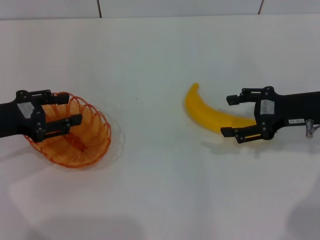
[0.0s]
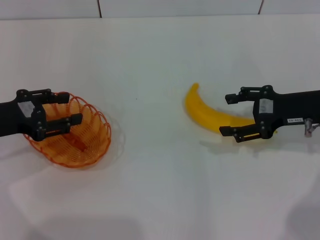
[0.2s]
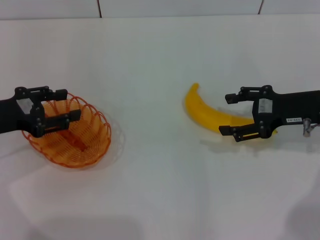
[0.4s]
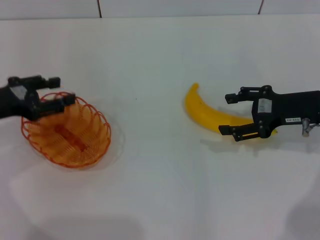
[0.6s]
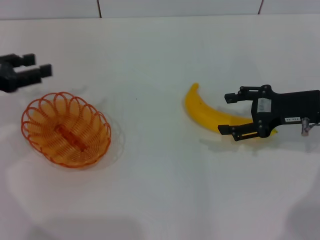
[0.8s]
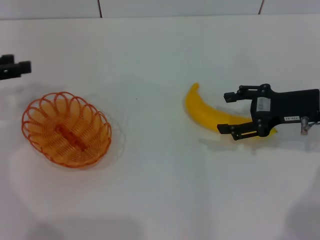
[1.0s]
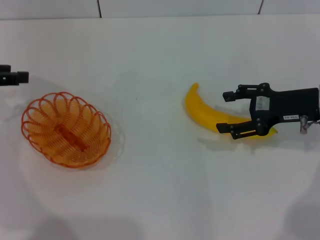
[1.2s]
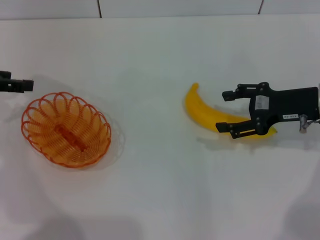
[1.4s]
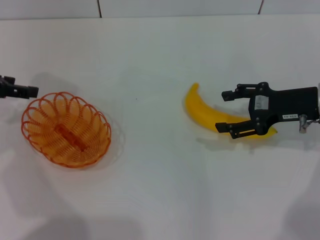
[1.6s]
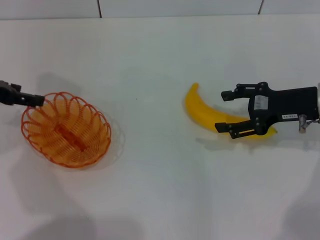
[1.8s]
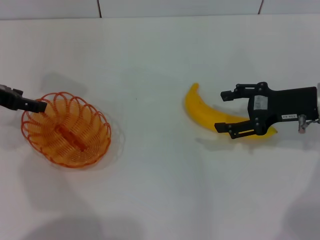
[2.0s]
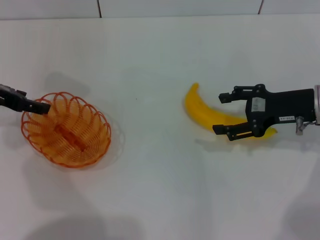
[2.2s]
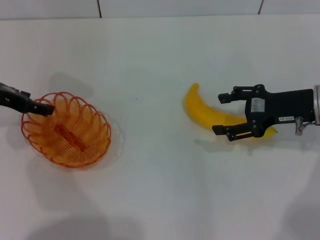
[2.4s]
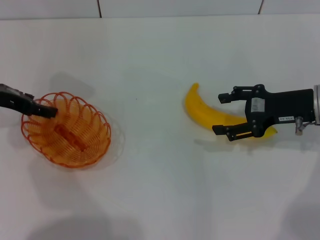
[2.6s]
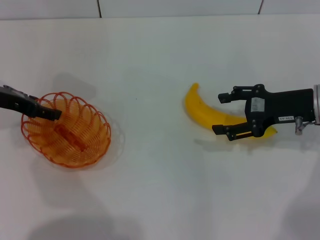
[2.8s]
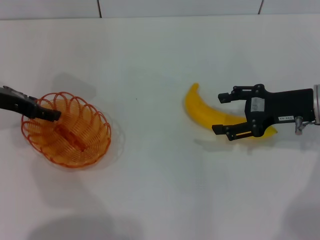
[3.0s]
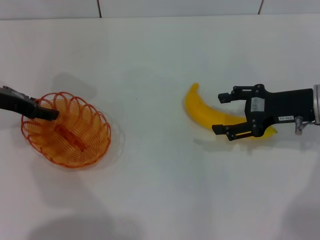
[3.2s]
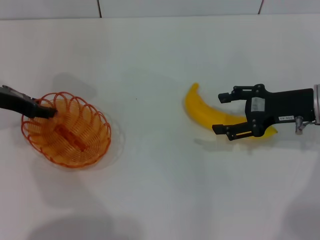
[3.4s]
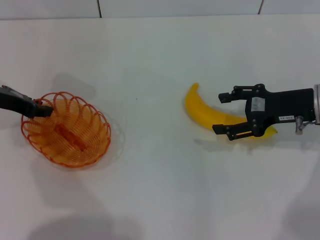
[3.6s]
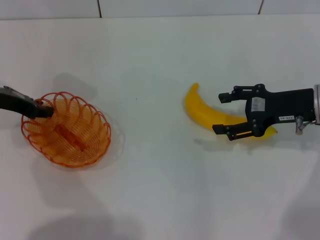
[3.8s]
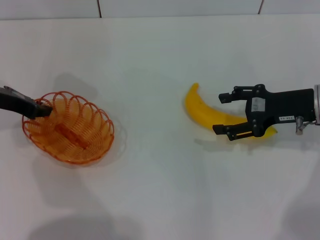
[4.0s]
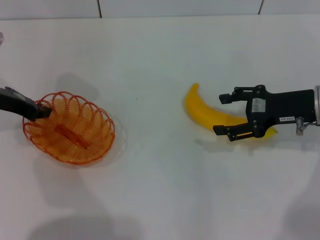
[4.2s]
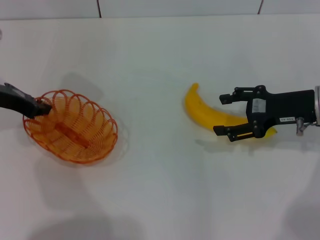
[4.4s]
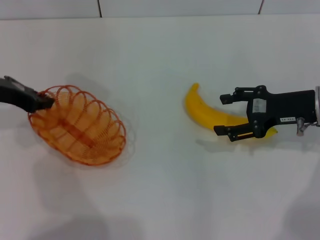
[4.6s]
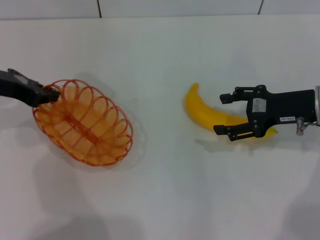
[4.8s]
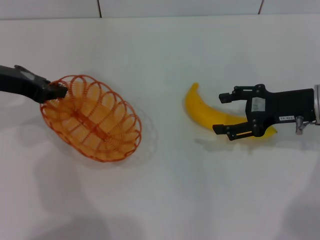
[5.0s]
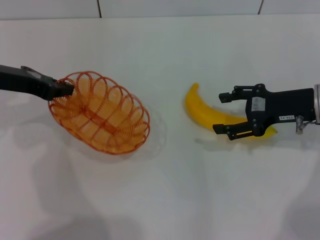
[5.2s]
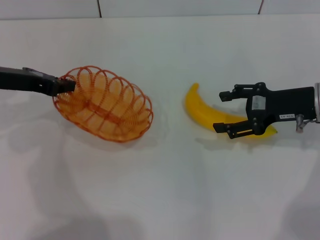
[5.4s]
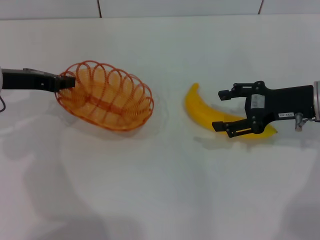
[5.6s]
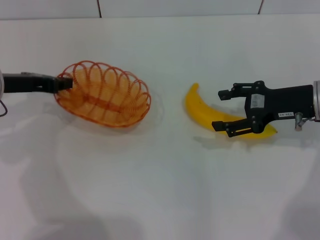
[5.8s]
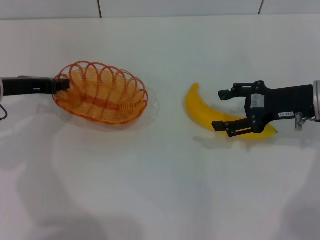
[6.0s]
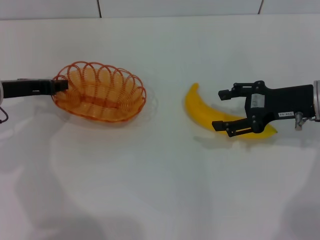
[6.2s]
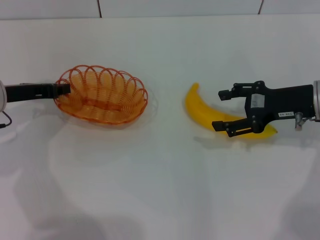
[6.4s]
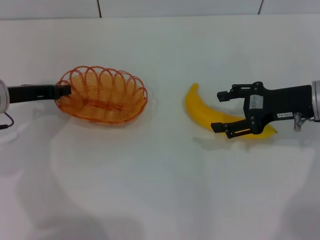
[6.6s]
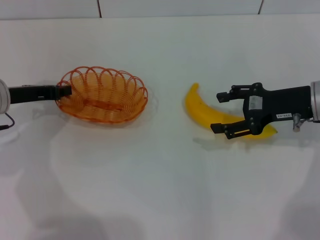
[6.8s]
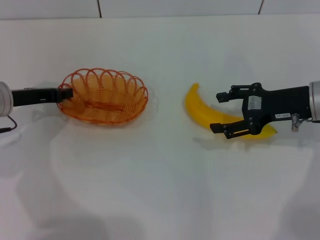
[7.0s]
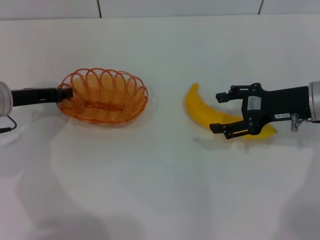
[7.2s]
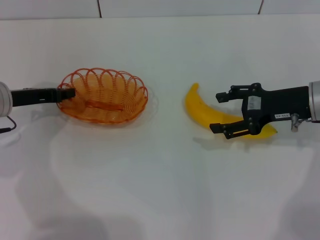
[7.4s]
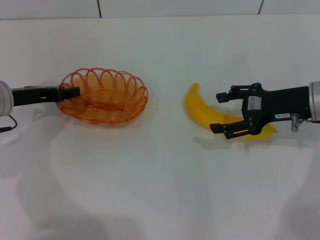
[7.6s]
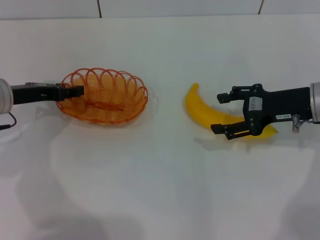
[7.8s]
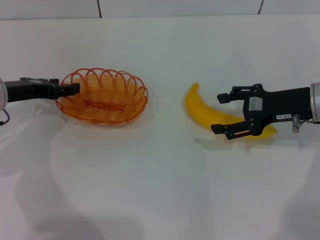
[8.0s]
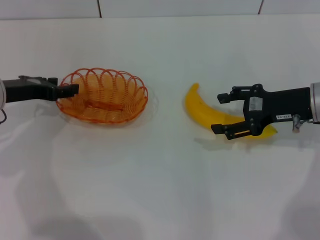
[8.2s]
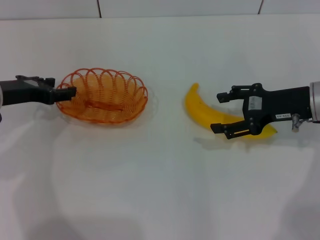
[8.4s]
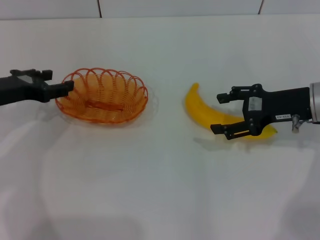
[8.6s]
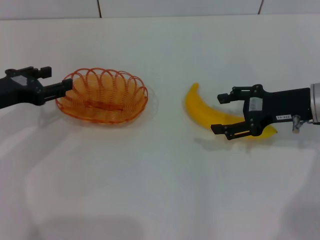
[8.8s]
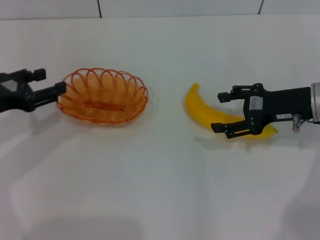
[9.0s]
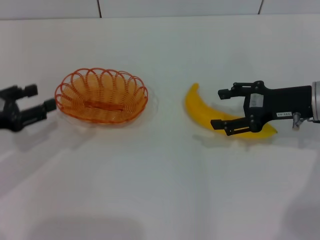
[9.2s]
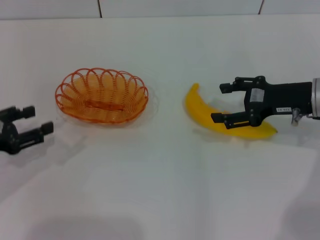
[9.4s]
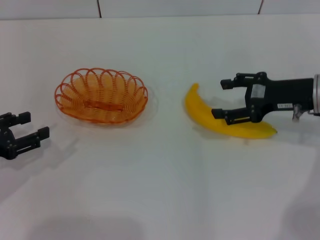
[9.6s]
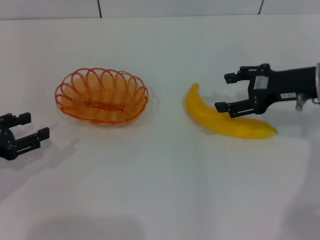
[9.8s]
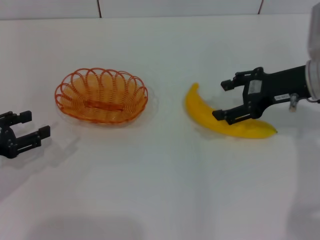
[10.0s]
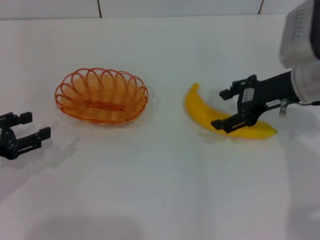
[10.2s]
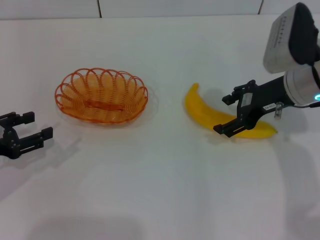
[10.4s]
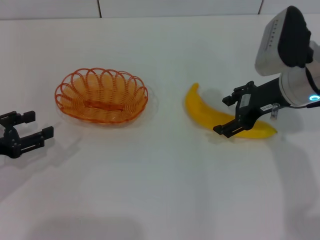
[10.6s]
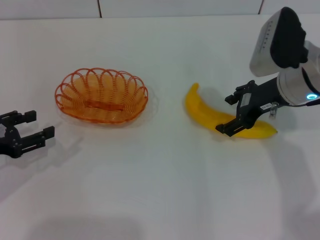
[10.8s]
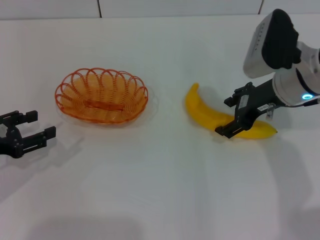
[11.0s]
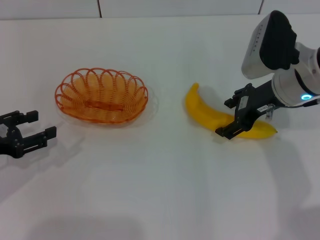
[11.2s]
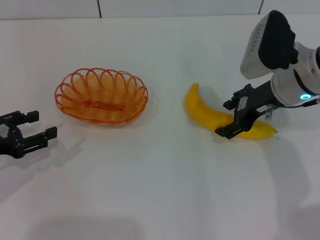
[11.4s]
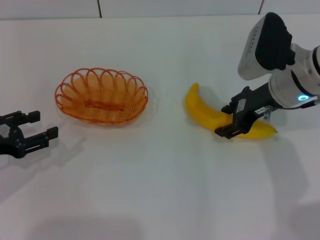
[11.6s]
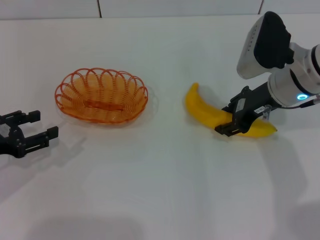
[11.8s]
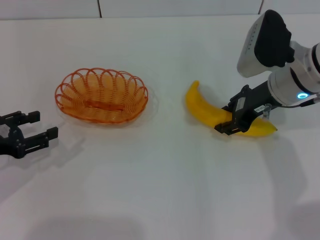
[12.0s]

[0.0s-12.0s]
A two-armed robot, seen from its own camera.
Step, 0.0s to 5.2s: Pick up the basket with the left gripper.
Step, 5.4s to 7.8s: Place the basket in the center of view with the left gripper.
0.0s to 1.6s: The left gripper goes about 10 cm forward and upward.
1.6s to 3.0s: The left gripper ends up approximately 5 cm from where it was.
3.0s to 4.4s: The left gripper closes up.
6.0s to 7.6s: The grippers move only a little.
7.6s to 9.0s: The left gripper is displaced backward by about 5 cm, and opens.
9.0s to 10.4s: The left gripper shifts by approximately 5 cm. The right gripper shifts by approximately 5 cm.
10.4s to 12.0s: The right gripper closes up.

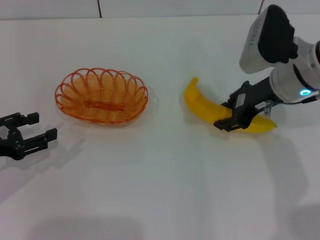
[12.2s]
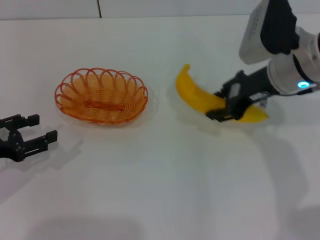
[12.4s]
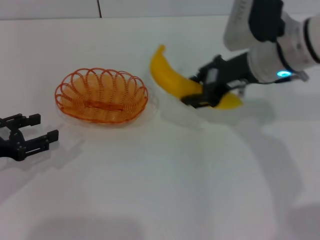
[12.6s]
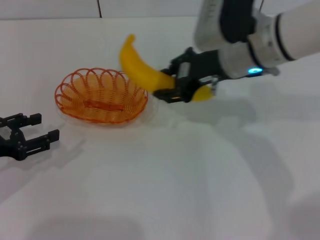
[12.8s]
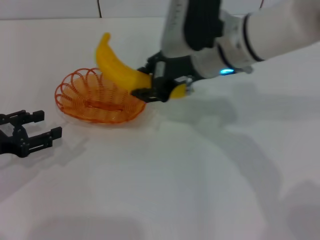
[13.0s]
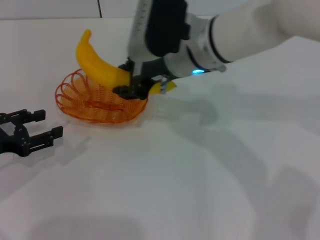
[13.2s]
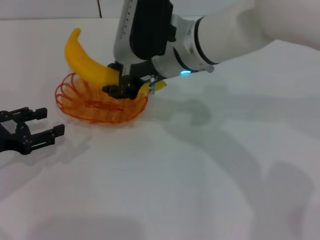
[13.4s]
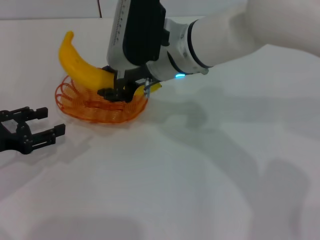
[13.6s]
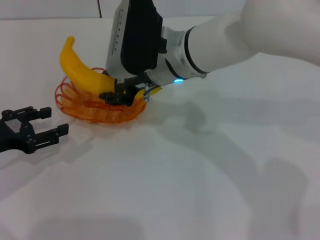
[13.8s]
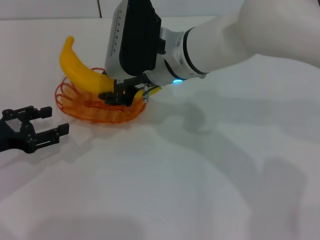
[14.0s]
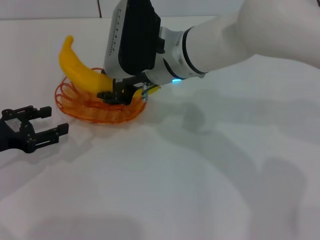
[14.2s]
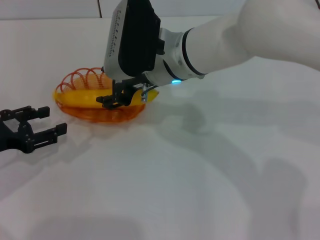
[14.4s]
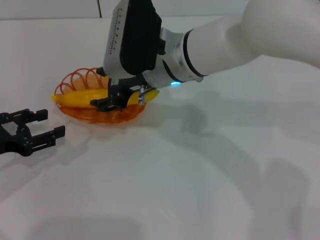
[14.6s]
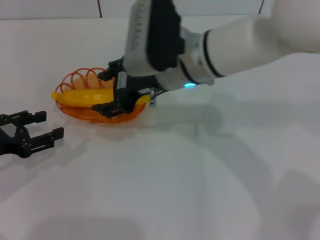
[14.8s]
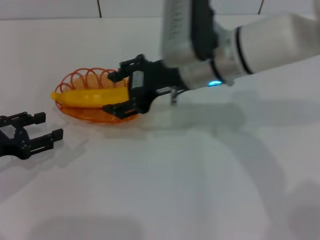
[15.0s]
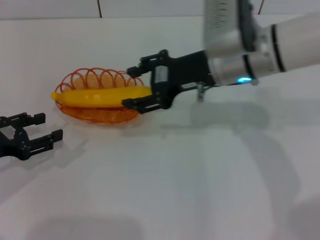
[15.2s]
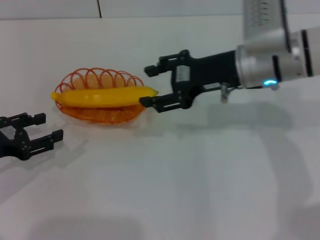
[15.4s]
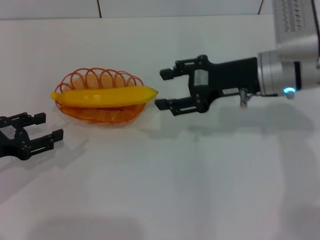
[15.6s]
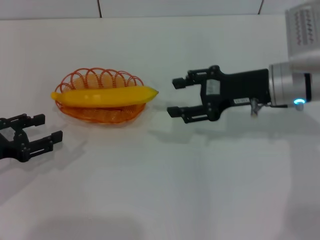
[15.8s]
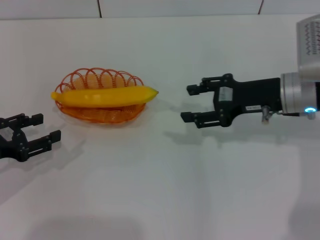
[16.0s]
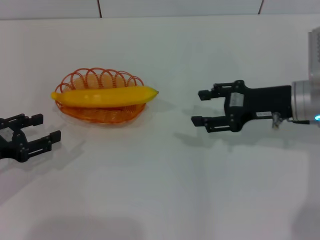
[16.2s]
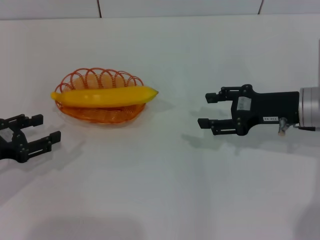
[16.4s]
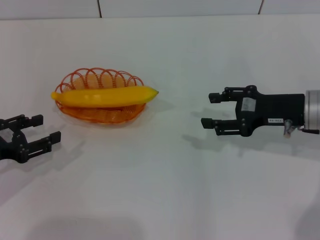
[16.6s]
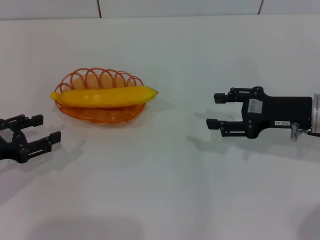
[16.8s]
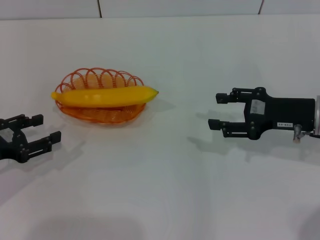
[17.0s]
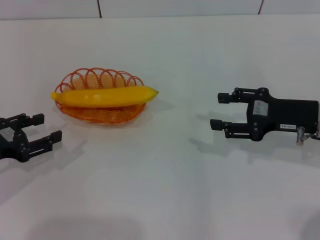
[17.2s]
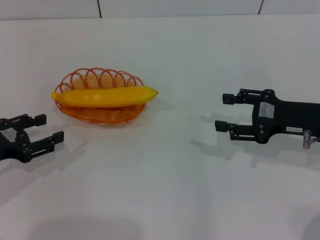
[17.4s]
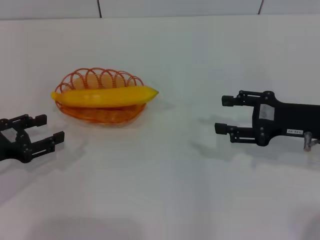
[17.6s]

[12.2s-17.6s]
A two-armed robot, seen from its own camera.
Step, 12.8s to 14.8s: Place the banana into the basket with the right gripper.
12.2s to 13.6s: The right gripper heads to the left, covering some 15 cm.
13.6s to 15.0s: The right gripper travels to the right by roughly 5 cm, and opens.
15.0s to 16.2s: The right gripper moves to the right, some 15 cm.
16.2s to 17.6s: The right gripper moves some 5 cm.
